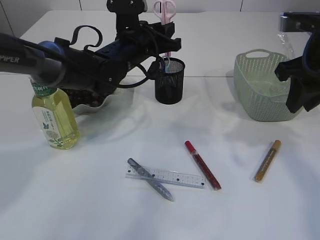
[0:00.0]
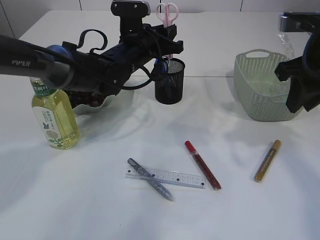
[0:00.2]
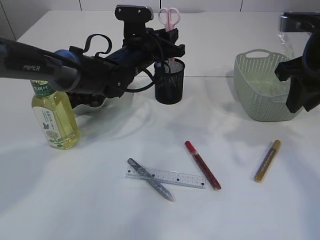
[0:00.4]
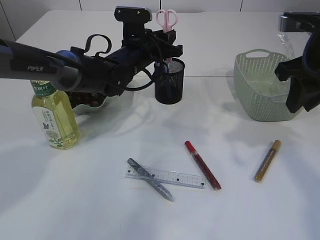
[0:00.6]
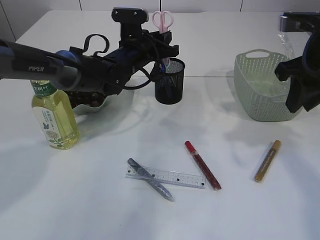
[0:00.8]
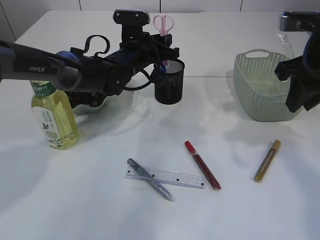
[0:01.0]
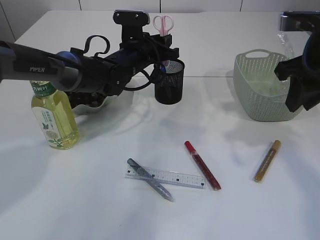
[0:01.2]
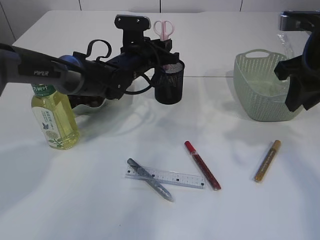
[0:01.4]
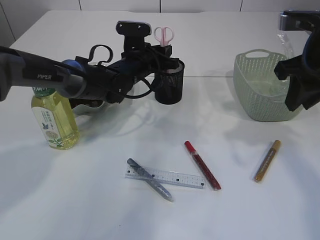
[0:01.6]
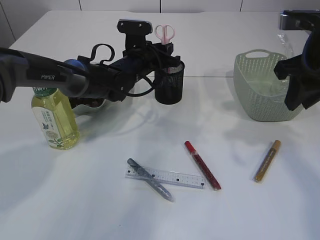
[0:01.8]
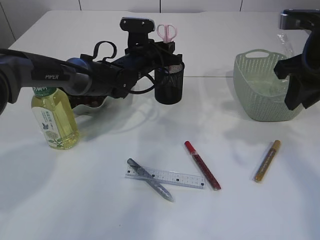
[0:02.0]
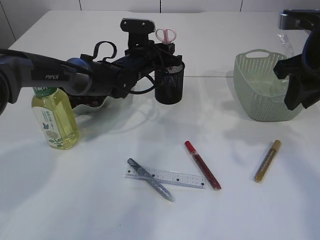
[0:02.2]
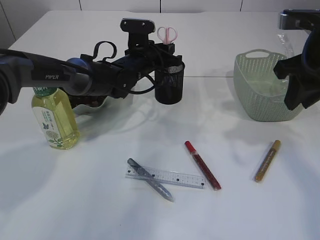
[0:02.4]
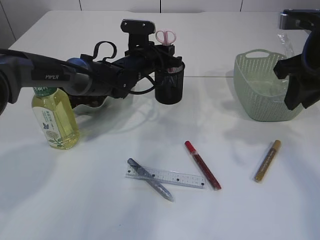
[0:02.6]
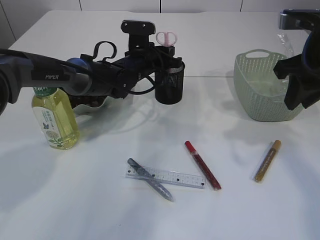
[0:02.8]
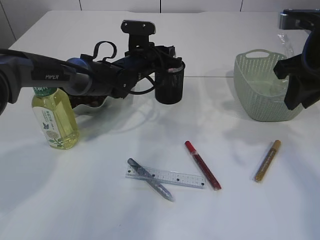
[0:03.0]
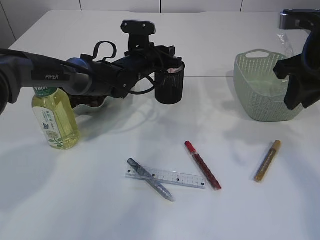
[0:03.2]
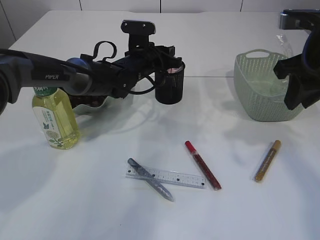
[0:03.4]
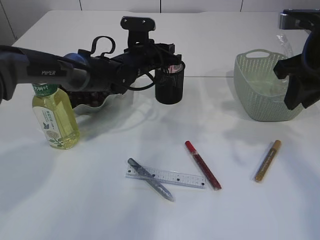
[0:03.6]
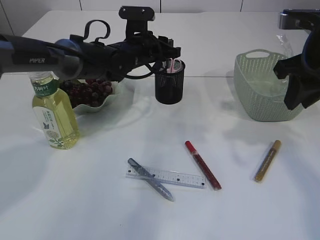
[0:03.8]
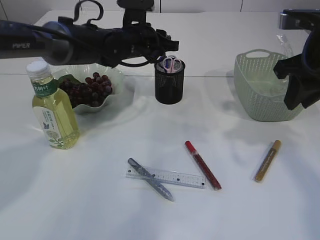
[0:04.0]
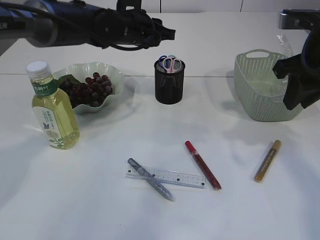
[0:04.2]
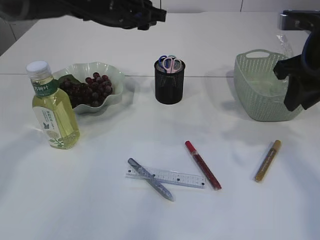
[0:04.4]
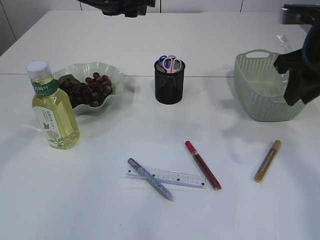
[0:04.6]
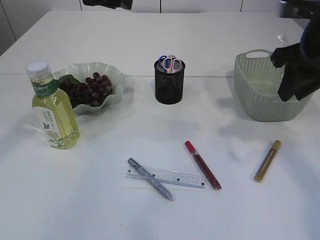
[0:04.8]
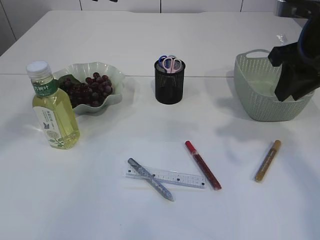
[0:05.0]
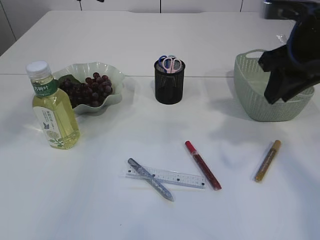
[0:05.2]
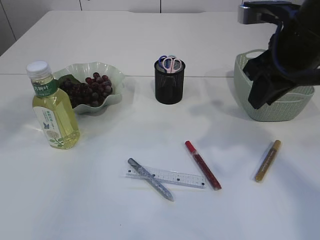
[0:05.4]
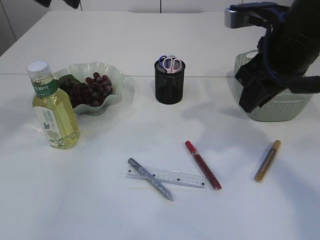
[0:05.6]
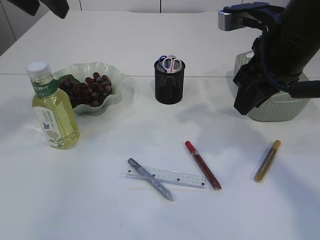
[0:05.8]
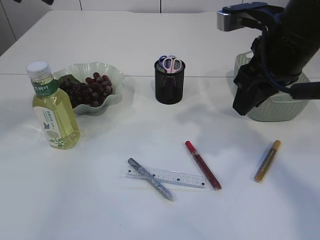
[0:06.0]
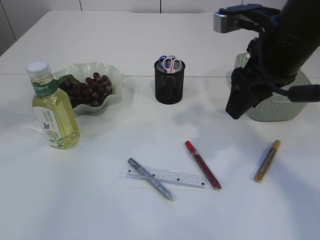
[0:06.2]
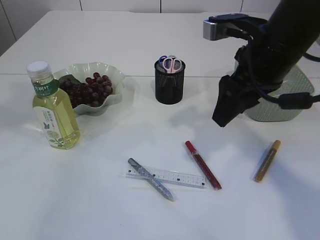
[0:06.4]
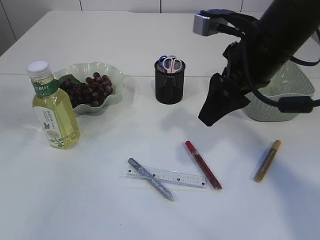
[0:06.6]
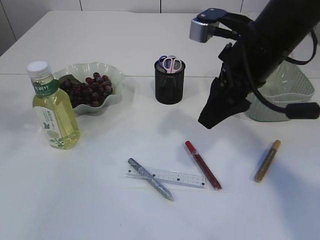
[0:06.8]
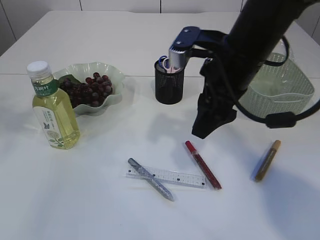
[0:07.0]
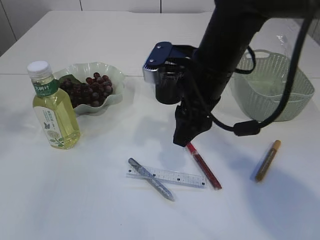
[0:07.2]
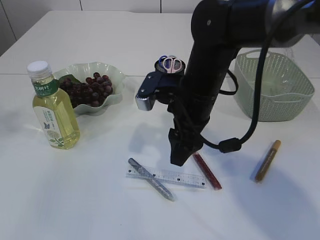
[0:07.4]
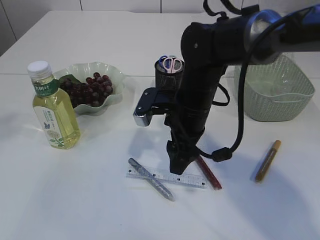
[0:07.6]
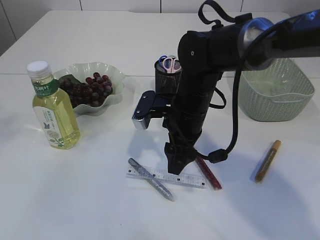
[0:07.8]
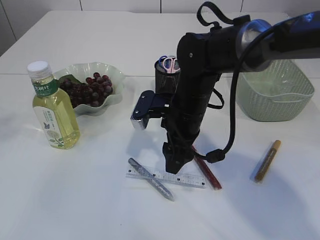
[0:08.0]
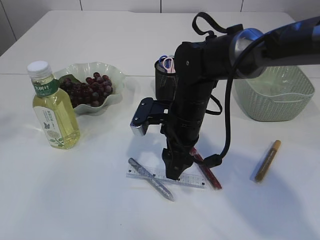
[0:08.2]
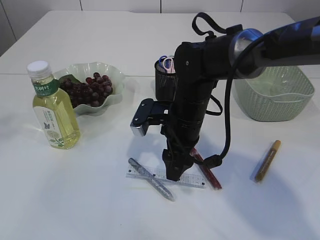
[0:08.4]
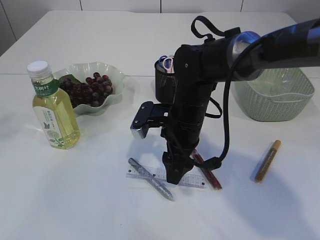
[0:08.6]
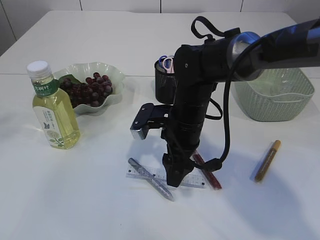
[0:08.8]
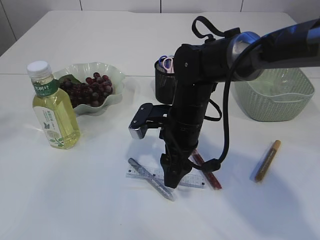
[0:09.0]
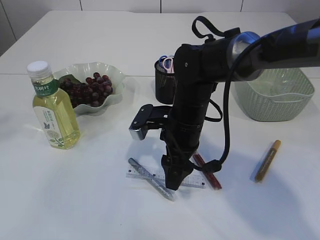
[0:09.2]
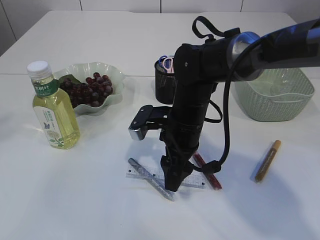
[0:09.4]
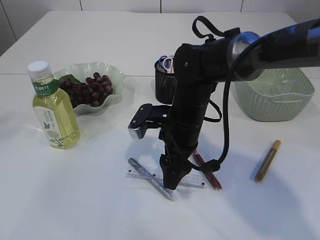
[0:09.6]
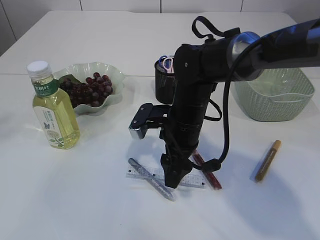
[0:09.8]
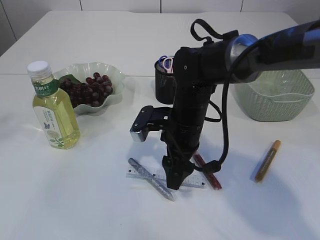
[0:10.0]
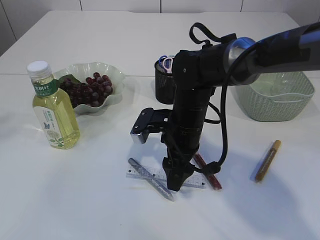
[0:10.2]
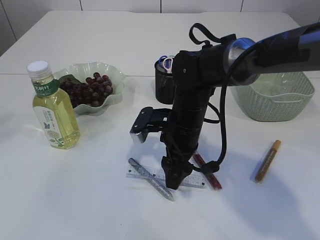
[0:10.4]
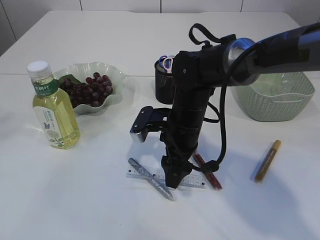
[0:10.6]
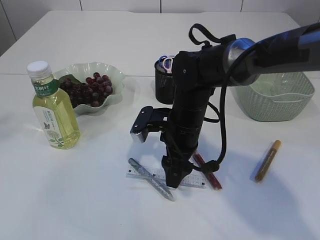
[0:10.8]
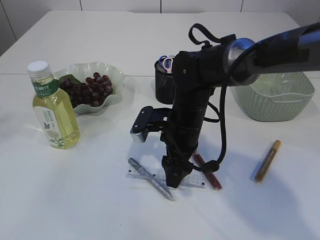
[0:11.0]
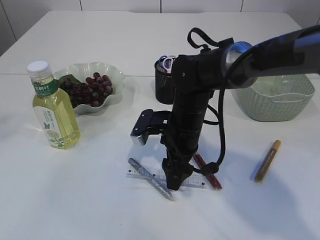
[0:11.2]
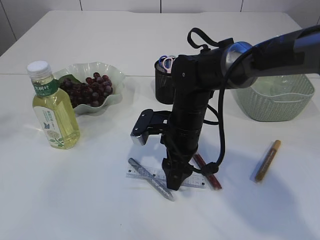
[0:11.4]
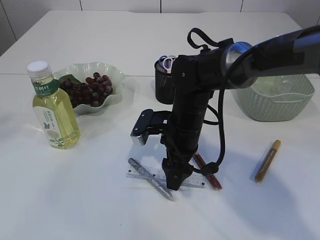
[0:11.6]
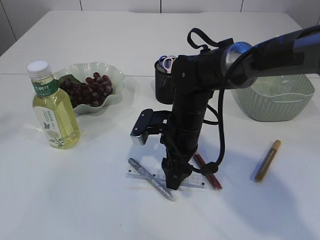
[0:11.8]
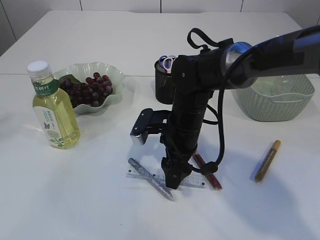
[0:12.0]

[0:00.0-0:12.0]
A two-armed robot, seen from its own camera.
Step, 0:00.0 to 0:04.0: Place the pink scissors into the pen holder.
0:00.0 to 0:01.6: The left gripper heads downward, covering about 5 cm.
0:01.6 to 0:03.0: Neither gripper changes place.
0:03.0 to 0:04.4: The left gripper shifts roughly 15 cm upward.
0:04.4 to 0:06.0: The left gripper is displaced backward, upward and to the left by some 25 cm. Meanwhile the right gripper travels to the left by roughly 10 cm.
0:06.0 to 0:07.6: The right gripper shifts some 15 cm downward and to the left, and opens, while the left gripper goes roughly 15 cm backward, upward and to the left.
0:07.6 to 0:09.0: The grippers stay close to where they were, moving slightly.
0:09.0 to 0:10.4: Both grippers stay put.
0:10.4 to 0:12.0: Neither gripper changes place.

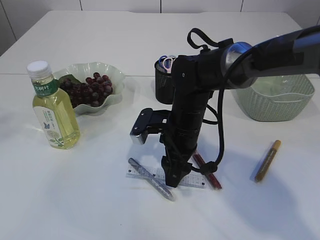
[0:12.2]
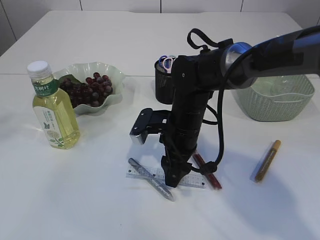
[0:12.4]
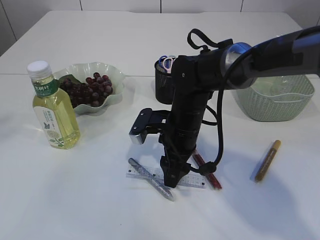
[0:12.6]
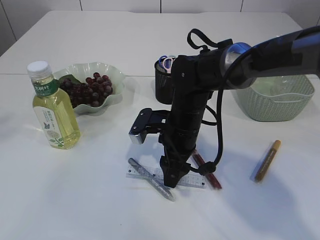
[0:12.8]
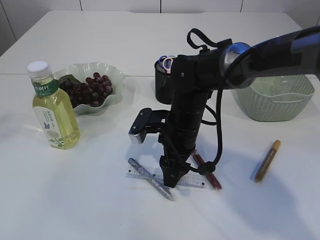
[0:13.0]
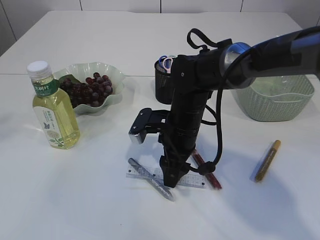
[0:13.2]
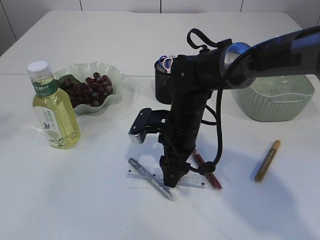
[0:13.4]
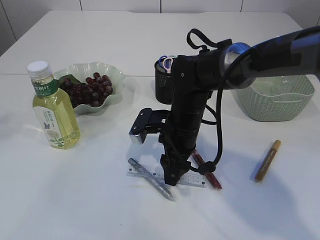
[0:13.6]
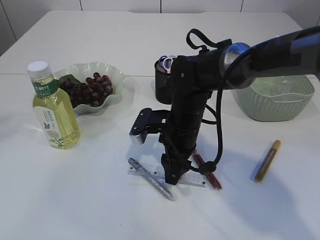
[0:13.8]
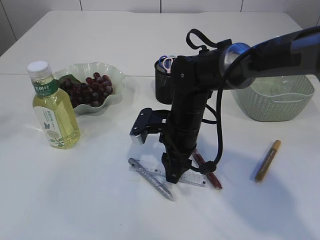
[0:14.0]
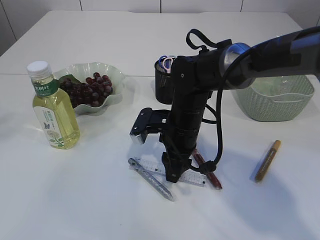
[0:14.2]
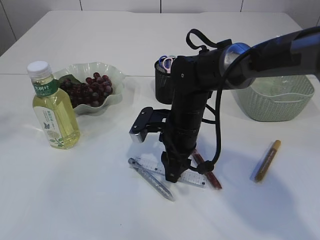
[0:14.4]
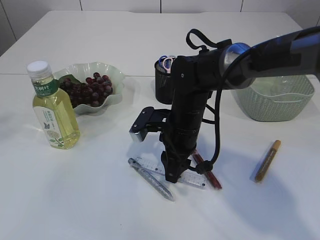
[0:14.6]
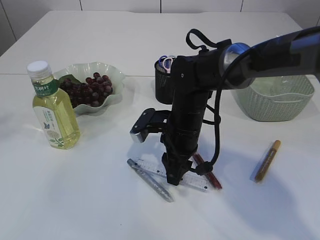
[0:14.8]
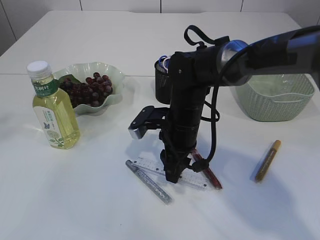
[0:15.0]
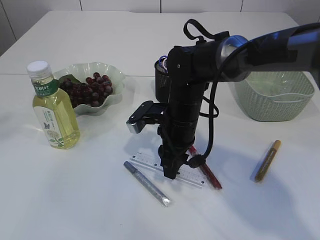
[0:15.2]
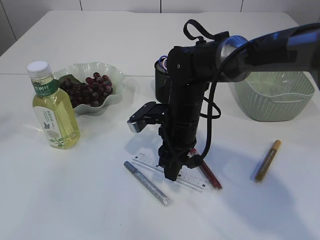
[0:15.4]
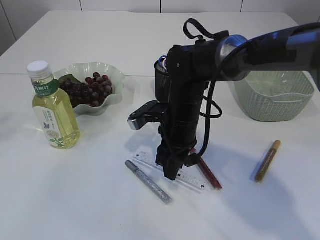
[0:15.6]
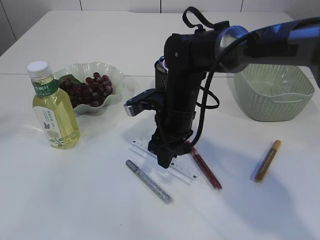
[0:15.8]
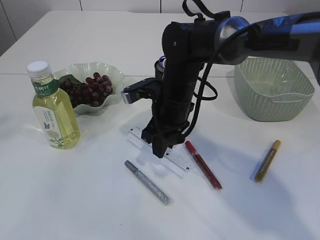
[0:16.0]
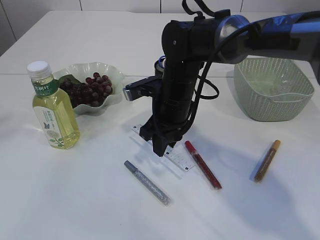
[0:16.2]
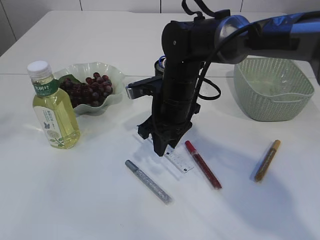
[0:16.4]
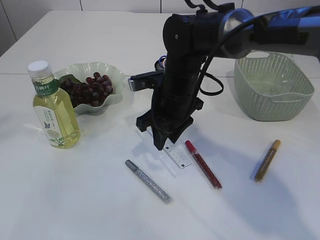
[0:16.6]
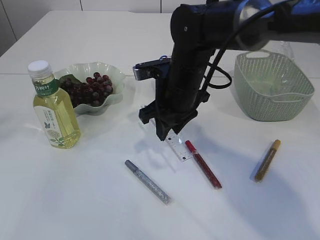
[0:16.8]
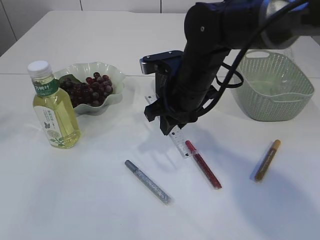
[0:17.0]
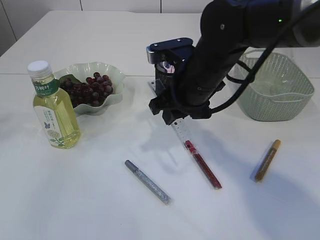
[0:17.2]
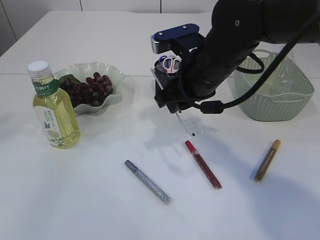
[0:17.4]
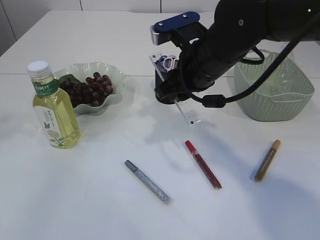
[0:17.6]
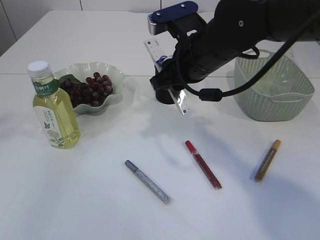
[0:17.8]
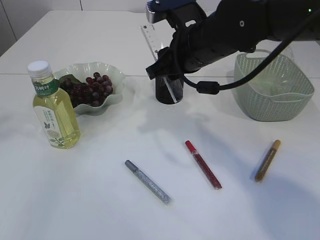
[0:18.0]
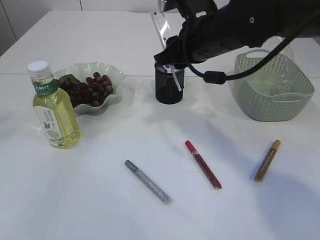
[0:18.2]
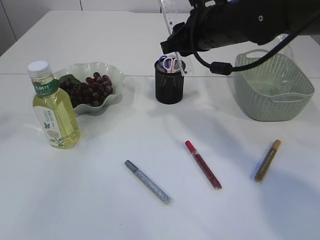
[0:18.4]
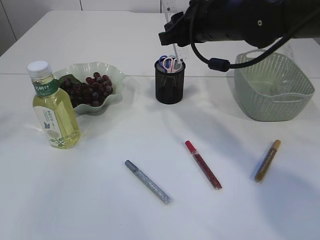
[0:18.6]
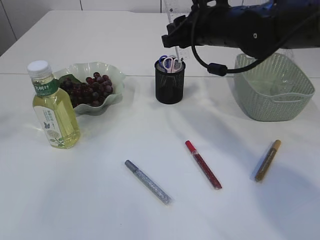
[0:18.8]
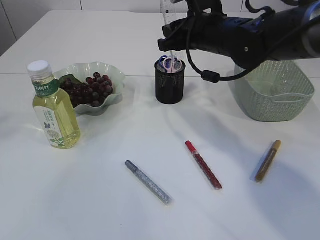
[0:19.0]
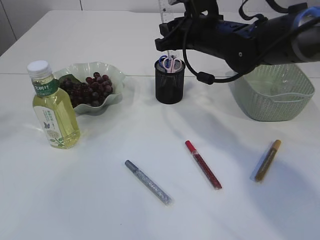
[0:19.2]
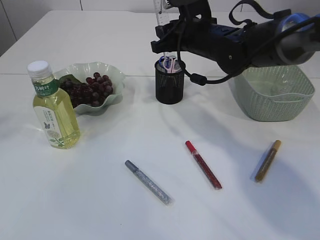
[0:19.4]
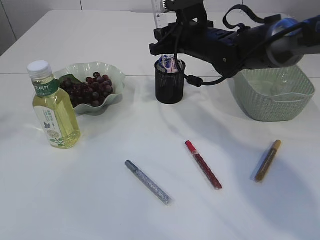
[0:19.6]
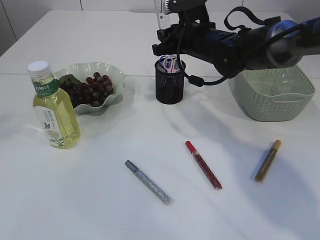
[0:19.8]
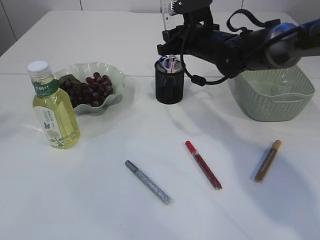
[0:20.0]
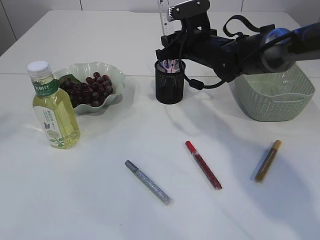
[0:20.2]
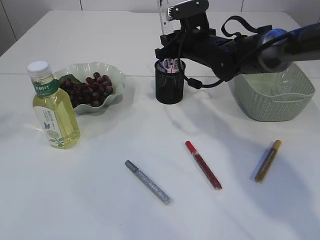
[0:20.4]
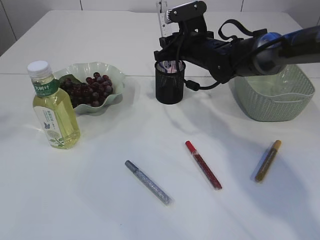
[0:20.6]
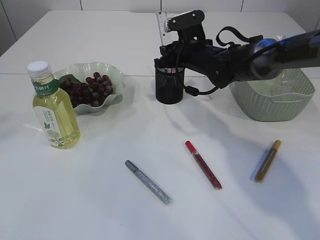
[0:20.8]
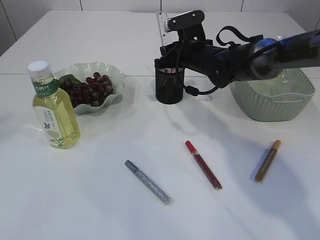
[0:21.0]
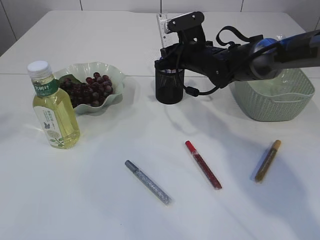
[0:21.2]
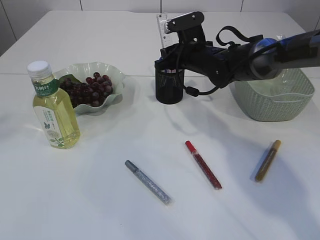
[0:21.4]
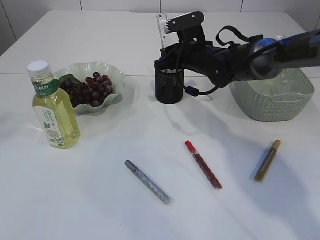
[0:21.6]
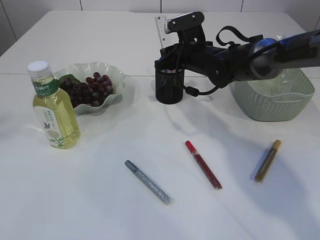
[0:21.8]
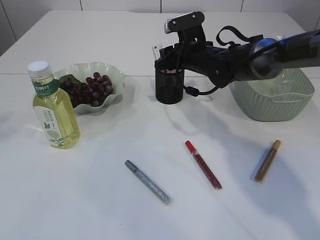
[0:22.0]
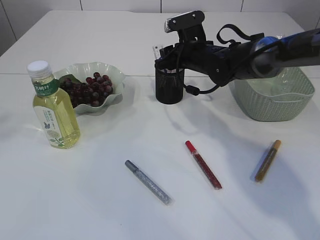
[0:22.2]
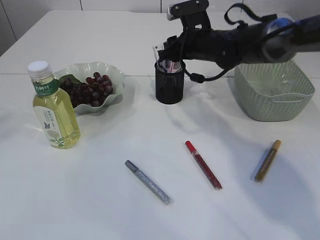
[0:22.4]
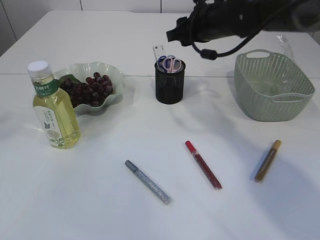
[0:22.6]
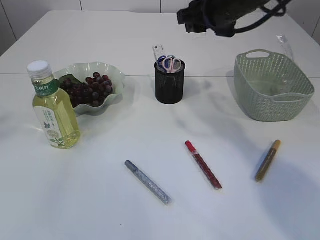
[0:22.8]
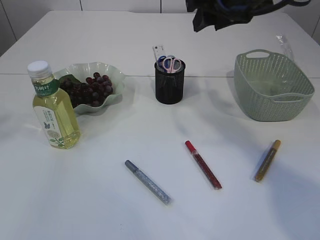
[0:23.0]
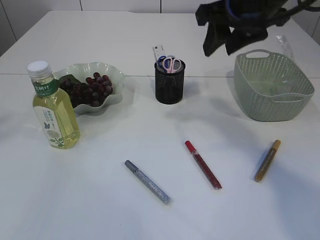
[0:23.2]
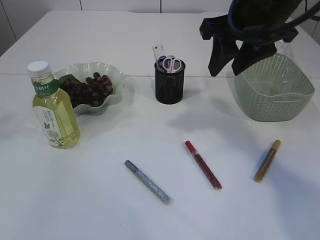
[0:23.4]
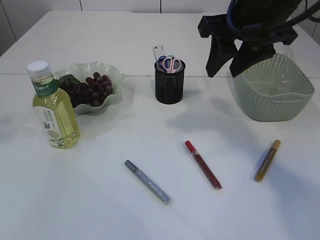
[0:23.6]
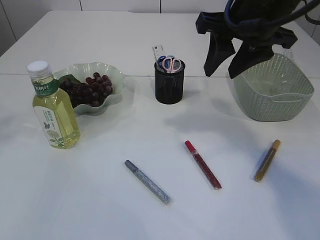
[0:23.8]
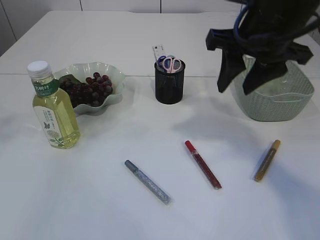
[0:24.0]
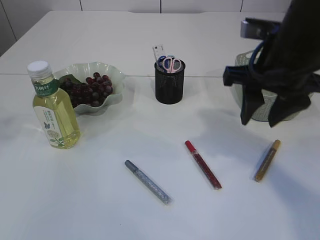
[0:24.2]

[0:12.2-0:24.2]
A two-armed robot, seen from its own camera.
Step, 0:12.2 to 0:16.8: pick up the ruler.
Step, 0:17.0 to 0:22.4: Place the ruler into the pen holder.
0:12.2 to 0:13.8: The two grippers keep their place.
0:13.8 to 0:15.2: The grippers stay close to where they were, moving slightly.
0:16.6 to 0:18.2: The right gripper travels upward by roughly 10 cm.
0:18.2 to 0:19.8: The right gripper heads forward and downward, covering approximately 10 cm.
0:19.8 to 0:21.2: The right gripper changes place by approximately 5 cm.
0:21.2 to 0:22.6: The right gripper moves upward, some 10 cm.
0:22.6 to 0:24.2: The right gripper is displaced backward by roughly 15 cm.
